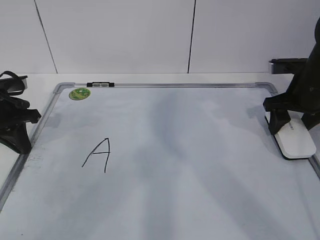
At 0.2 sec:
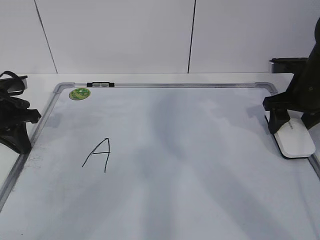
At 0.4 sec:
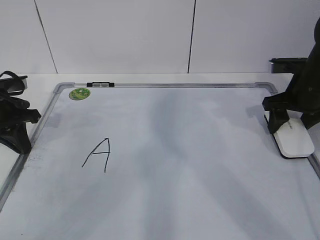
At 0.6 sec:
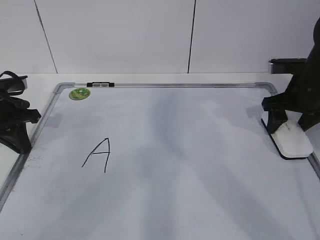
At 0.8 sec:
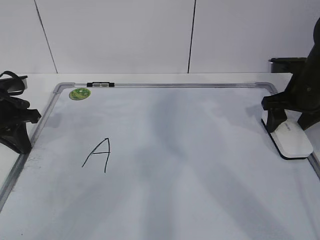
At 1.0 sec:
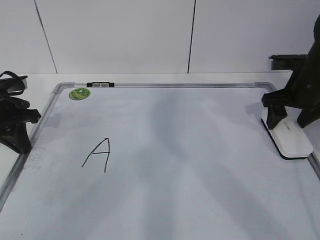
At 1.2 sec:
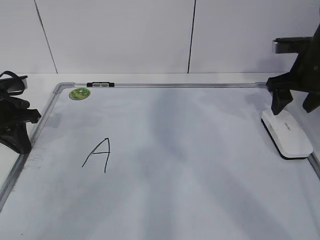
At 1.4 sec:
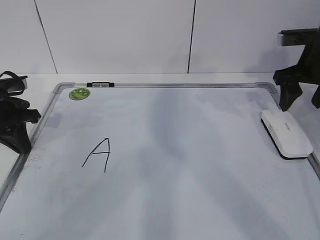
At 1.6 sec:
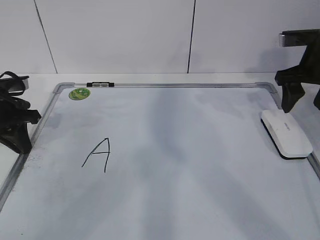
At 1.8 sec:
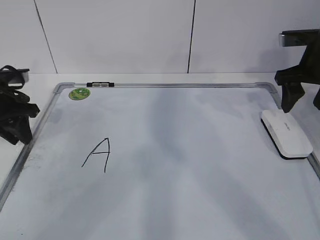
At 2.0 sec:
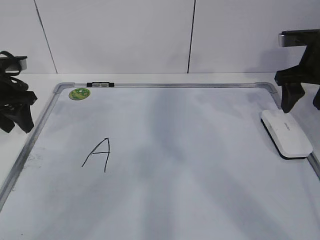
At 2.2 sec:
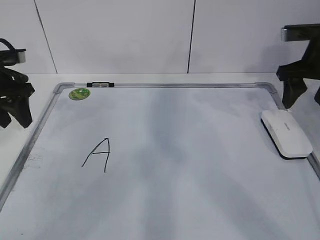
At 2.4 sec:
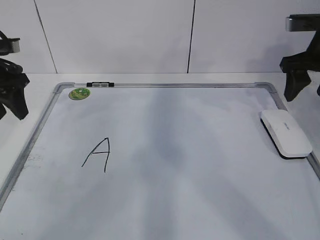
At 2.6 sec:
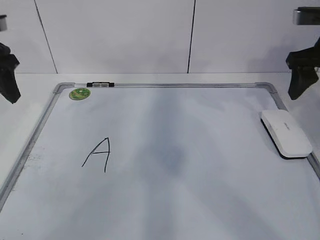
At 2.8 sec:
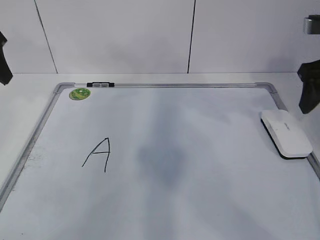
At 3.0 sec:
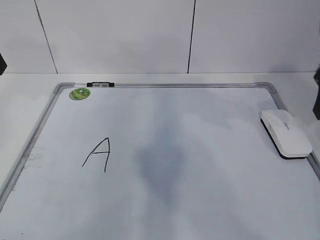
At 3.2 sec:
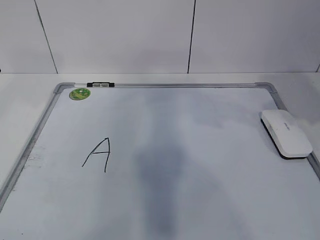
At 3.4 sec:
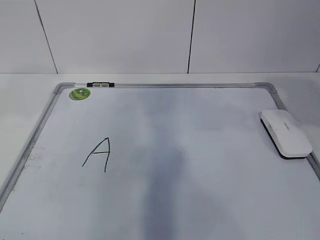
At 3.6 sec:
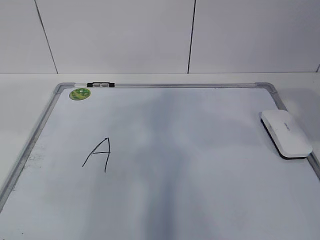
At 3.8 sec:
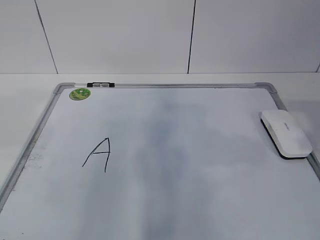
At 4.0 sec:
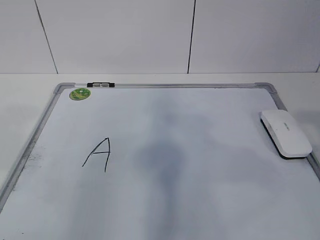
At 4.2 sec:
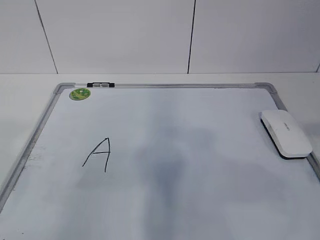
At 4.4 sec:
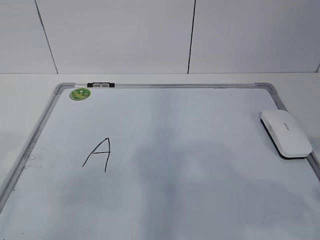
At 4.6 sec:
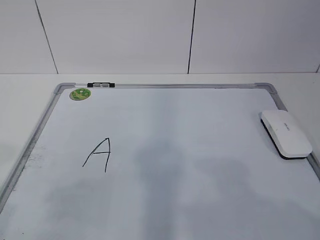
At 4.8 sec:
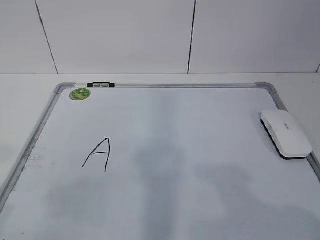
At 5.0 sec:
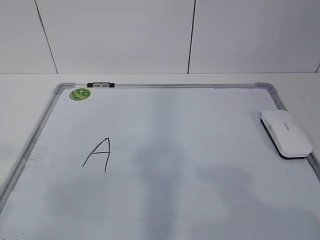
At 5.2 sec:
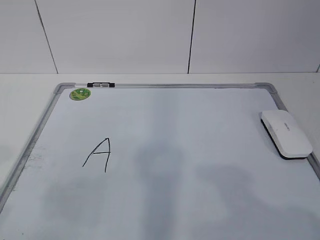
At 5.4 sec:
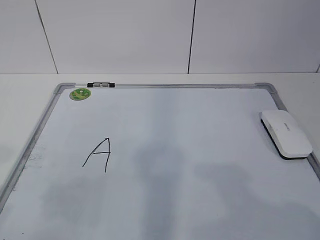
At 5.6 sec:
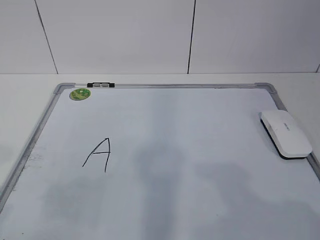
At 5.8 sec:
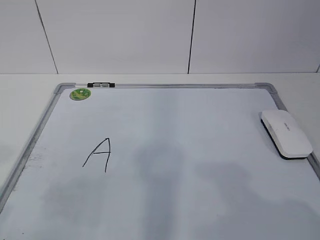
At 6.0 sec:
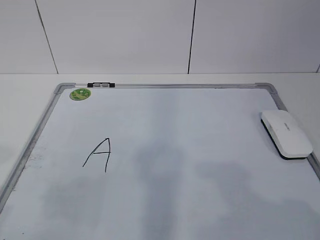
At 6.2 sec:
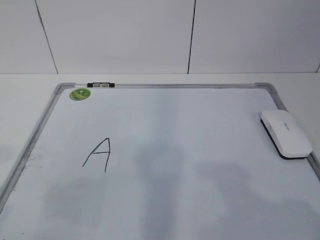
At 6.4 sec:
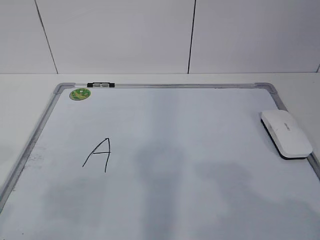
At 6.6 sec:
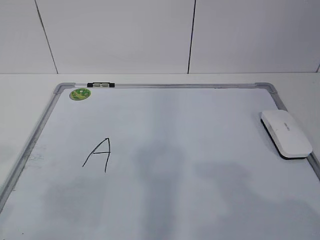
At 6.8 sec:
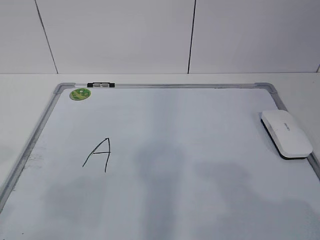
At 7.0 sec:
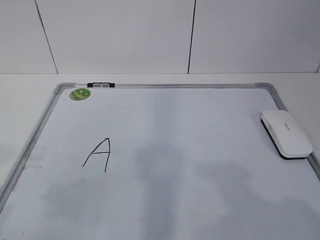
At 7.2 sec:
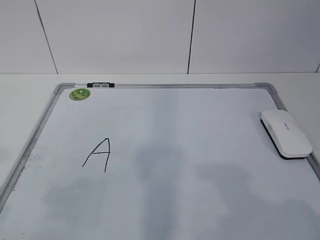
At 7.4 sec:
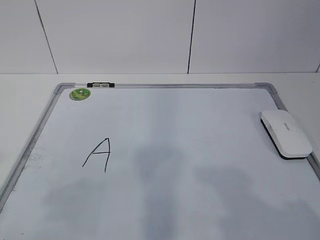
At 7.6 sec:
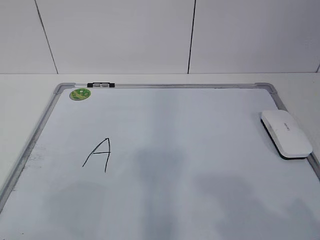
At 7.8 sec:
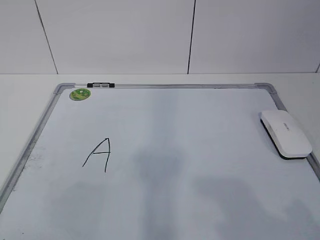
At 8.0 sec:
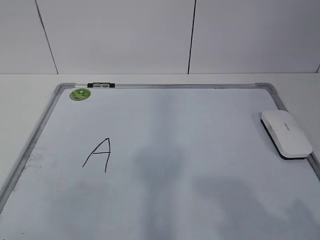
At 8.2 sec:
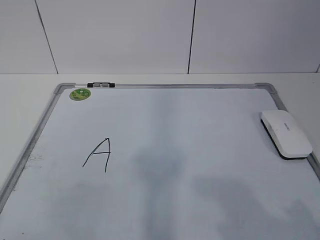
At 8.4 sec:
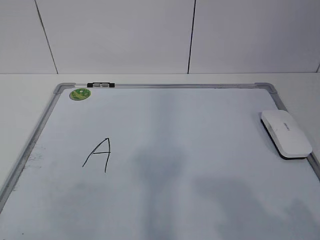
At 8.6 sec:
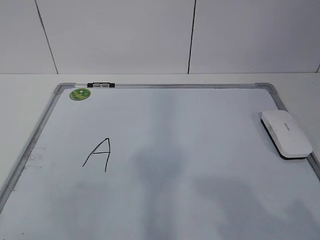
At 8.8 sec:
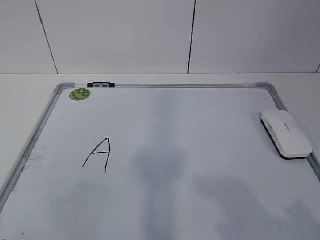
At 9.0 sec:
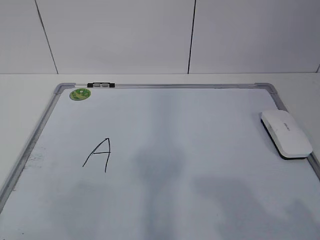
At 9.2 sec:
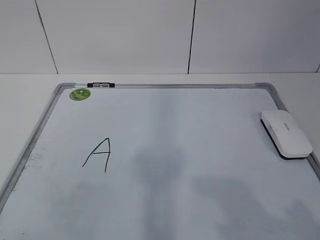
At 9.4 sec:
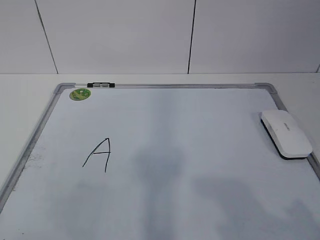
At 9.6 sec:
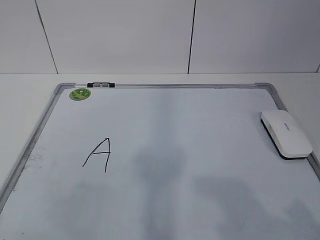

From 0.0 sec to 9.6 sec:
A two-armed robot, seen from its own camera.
Task of the whole recording: pick up the eraser on the blackboard and erase the letter "a".
From 0.0 sec to 1.6 sec: The right gripper heads upward, covering about 5 cm.
From 1.6 sec to 3.2 sec: The left gripper travels upward and backward by approximately 20 cm, and opens; the right gripper goes some 15 cm backward and upward.
From 3.2 sec to 4.8 sec: Both grippers move backward, approximately 25 cm.
From 8.0 sec to 9.6 sec: Both grippers stay put.
